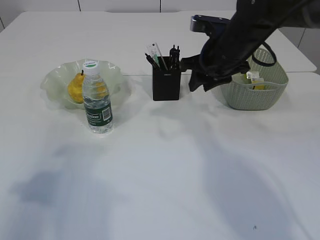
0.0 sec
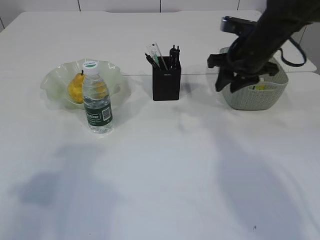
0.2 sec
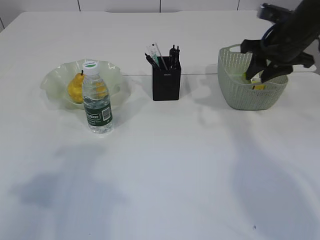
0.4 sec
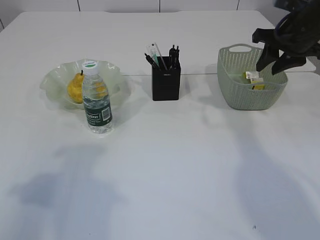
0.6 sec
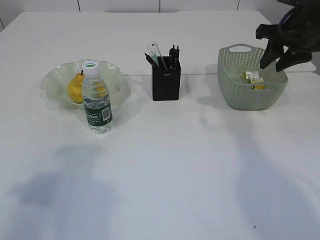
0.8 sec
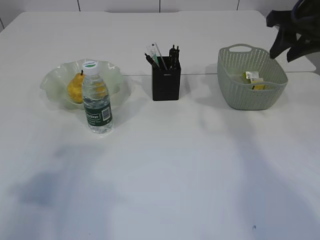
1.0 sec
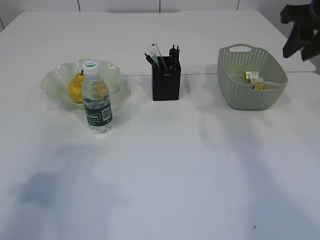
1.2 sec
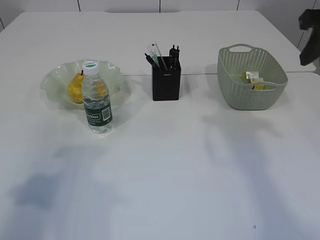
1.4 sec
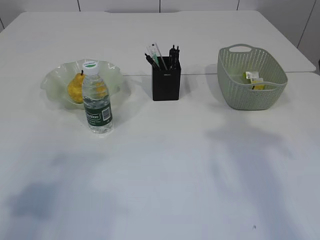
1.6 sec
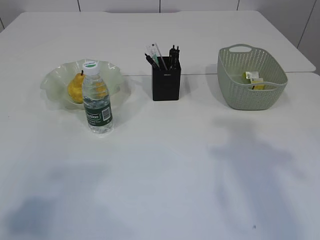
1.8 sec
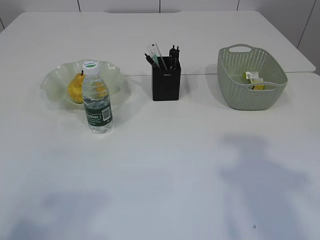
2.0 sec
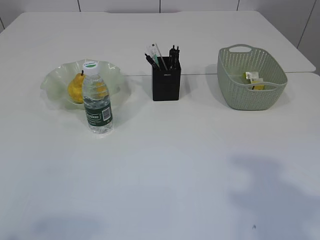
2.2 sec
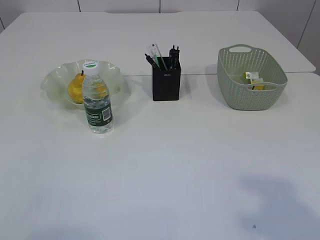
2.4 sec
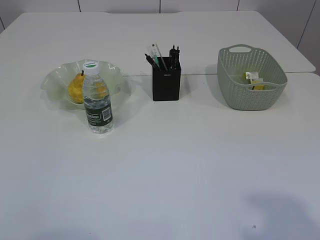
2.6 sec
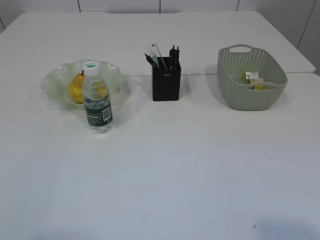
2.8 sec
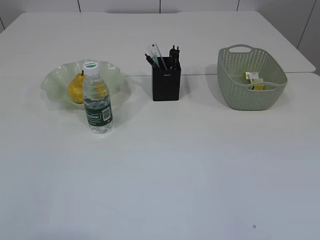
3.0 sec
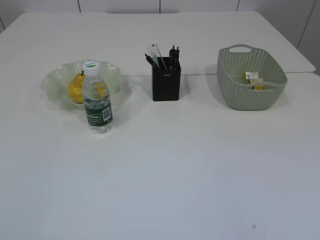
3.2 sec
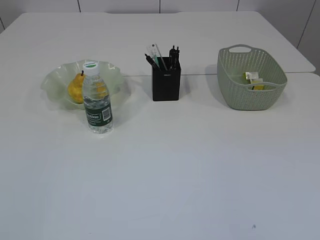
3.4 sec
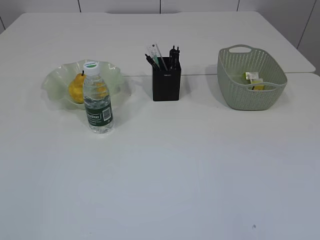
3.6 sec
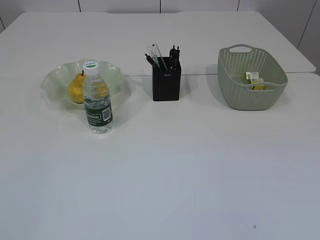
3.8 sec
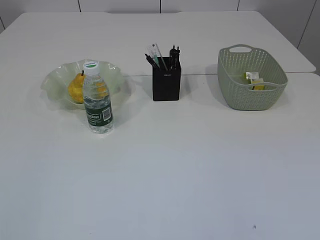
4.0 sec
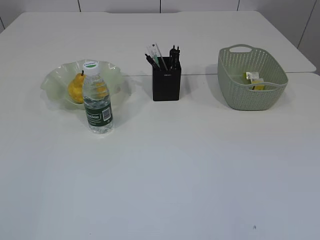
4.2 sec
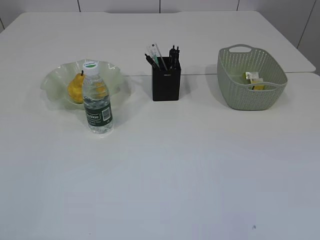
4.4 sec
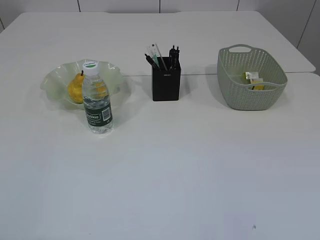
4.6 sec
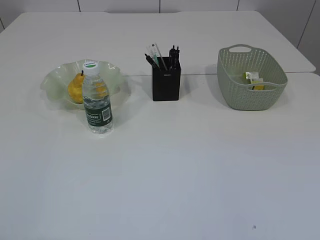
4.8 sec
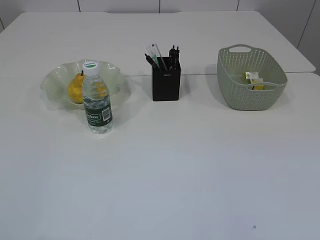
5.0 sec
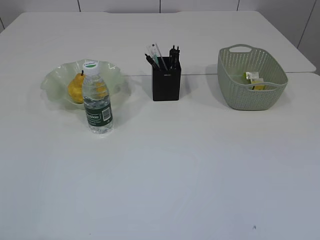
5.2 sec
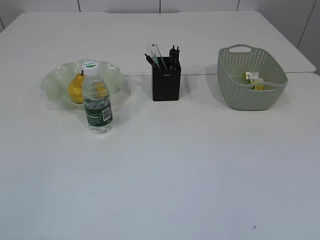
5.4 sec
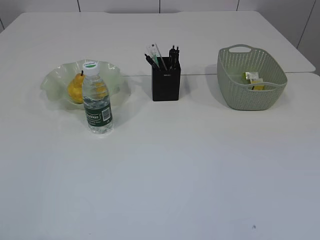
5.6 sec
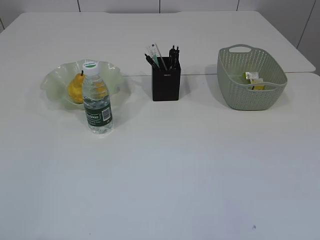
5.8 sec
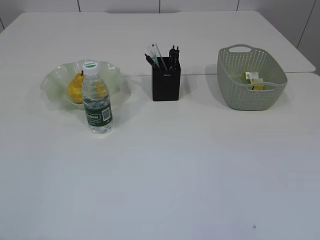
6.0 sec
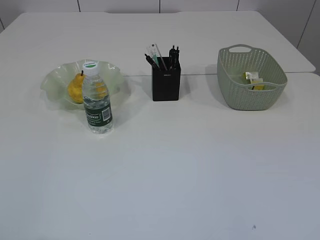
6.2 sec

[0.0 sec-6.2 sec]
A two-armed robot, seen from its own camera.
0.0 sec to 1.6 sec: The right gripper shifts about 25 cm backward, to the right and upward.
1.6 sec to 3.2 sec: The left gripper travels backward by some 15 cm.

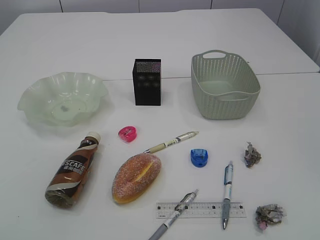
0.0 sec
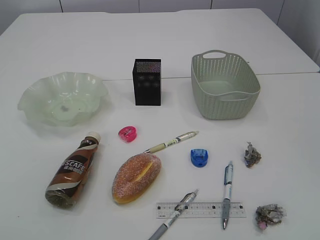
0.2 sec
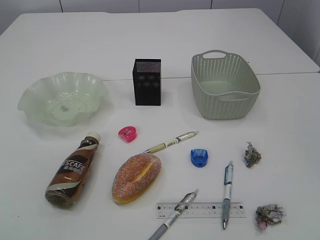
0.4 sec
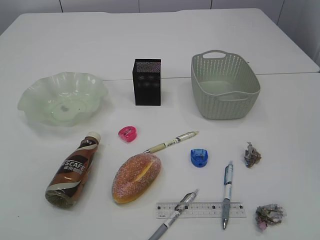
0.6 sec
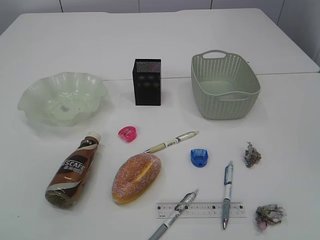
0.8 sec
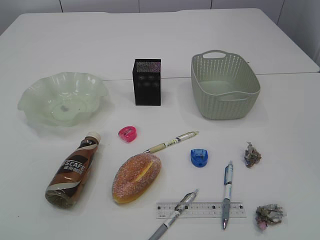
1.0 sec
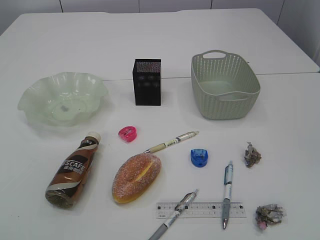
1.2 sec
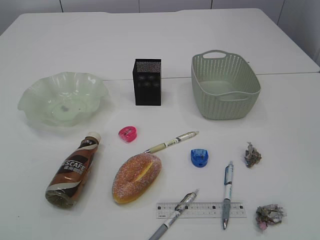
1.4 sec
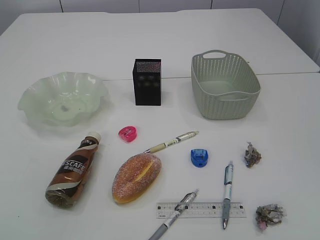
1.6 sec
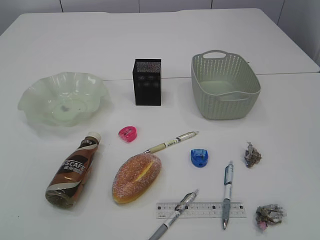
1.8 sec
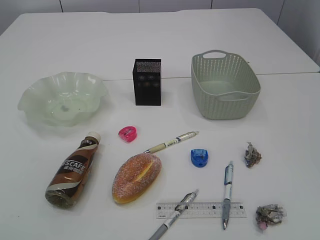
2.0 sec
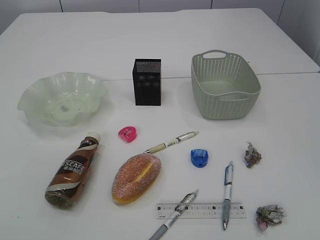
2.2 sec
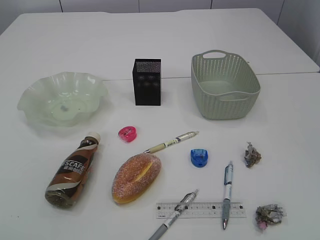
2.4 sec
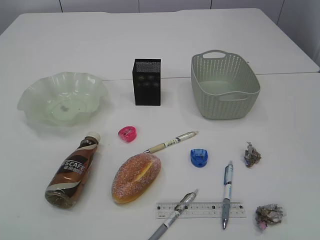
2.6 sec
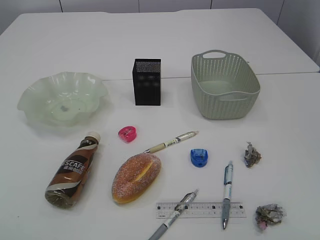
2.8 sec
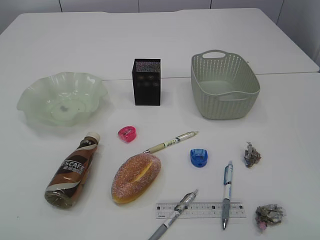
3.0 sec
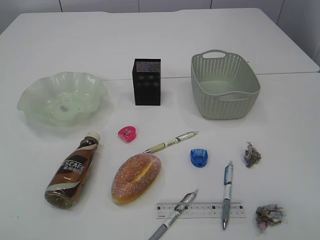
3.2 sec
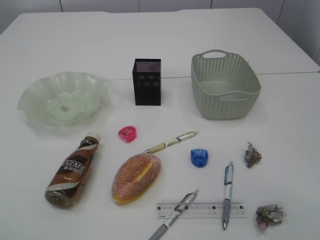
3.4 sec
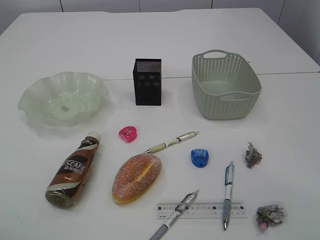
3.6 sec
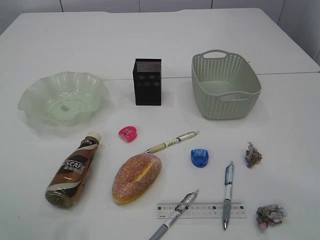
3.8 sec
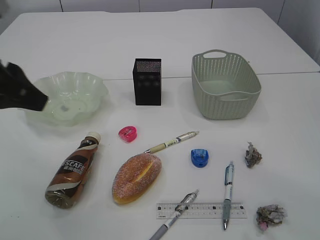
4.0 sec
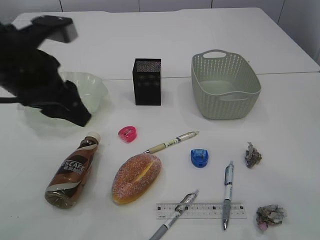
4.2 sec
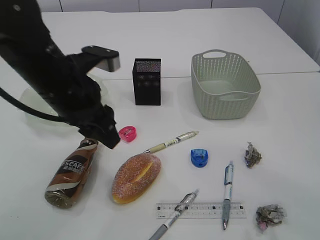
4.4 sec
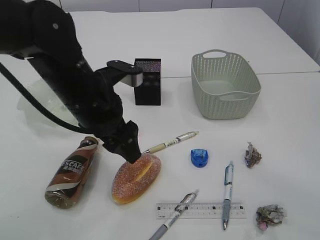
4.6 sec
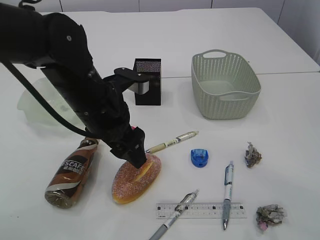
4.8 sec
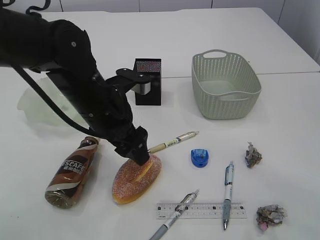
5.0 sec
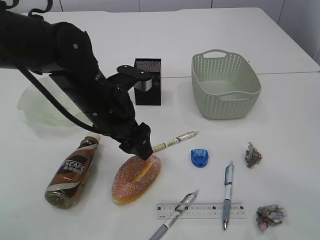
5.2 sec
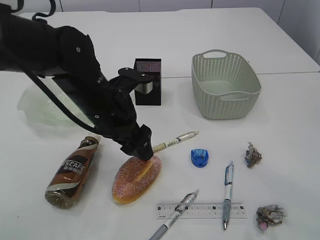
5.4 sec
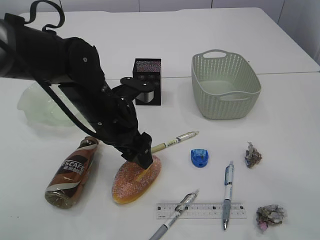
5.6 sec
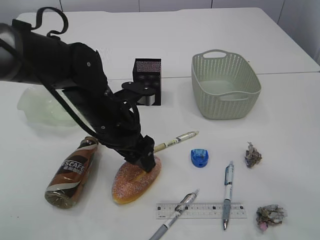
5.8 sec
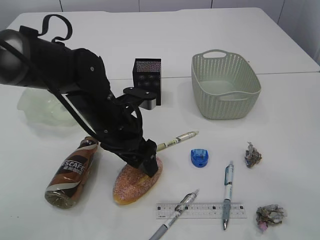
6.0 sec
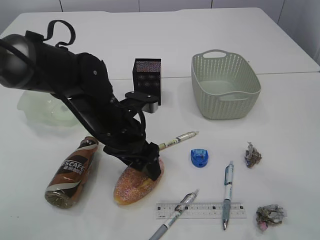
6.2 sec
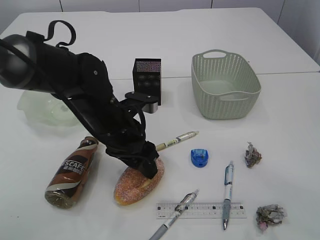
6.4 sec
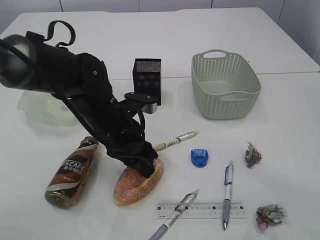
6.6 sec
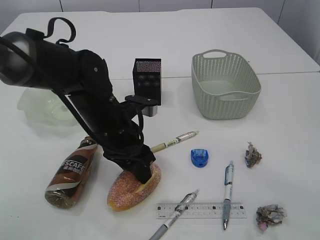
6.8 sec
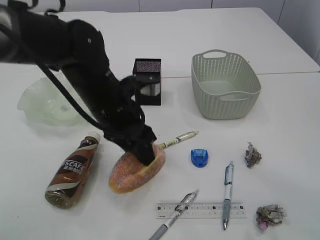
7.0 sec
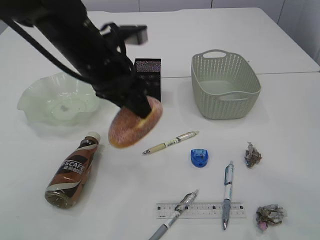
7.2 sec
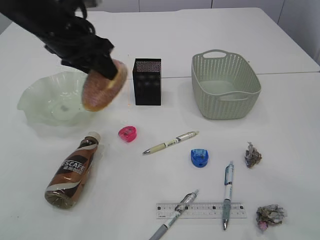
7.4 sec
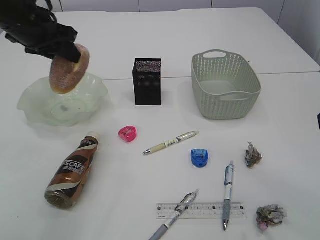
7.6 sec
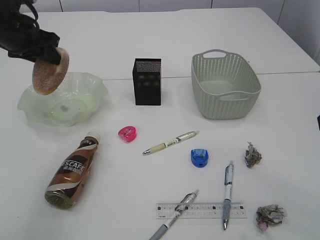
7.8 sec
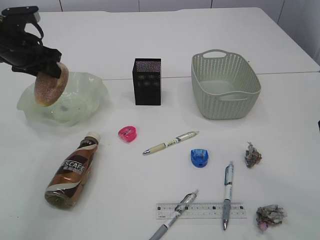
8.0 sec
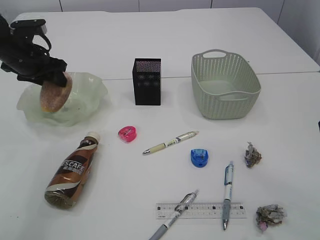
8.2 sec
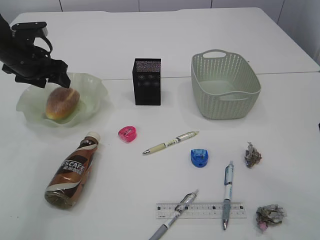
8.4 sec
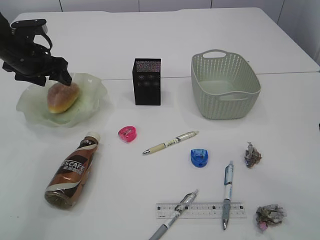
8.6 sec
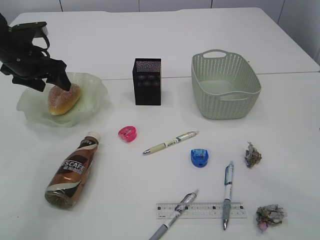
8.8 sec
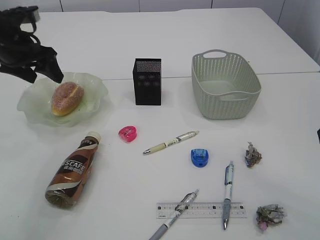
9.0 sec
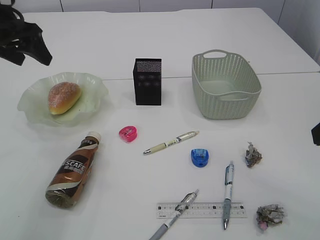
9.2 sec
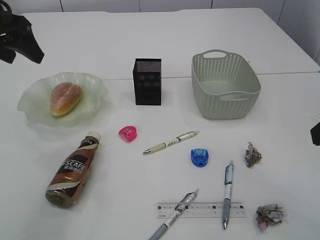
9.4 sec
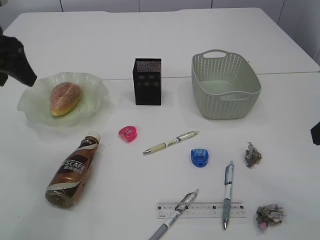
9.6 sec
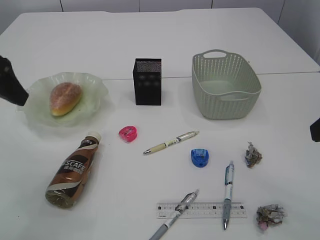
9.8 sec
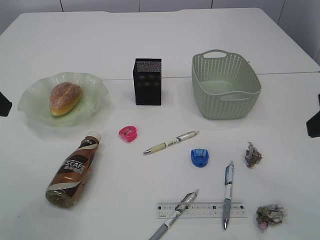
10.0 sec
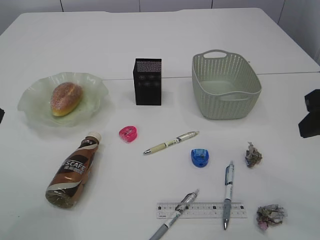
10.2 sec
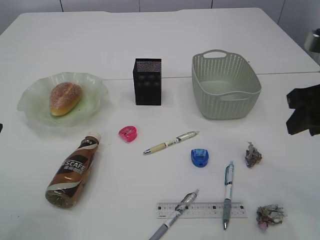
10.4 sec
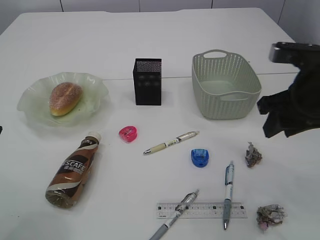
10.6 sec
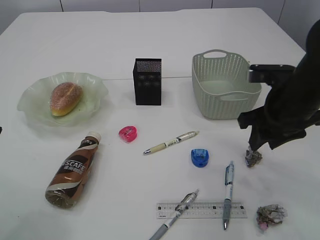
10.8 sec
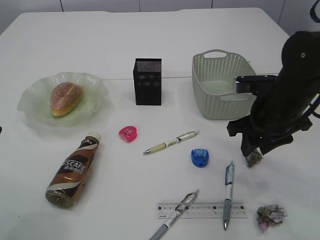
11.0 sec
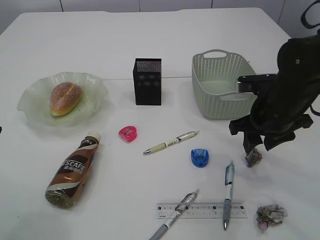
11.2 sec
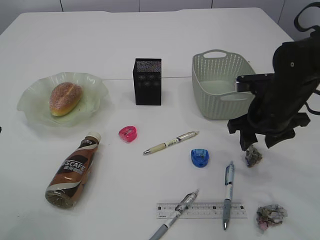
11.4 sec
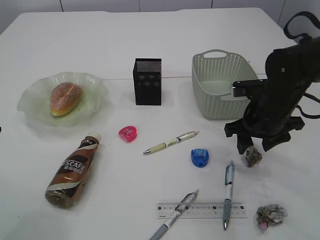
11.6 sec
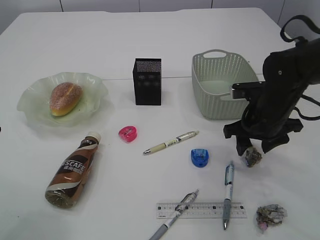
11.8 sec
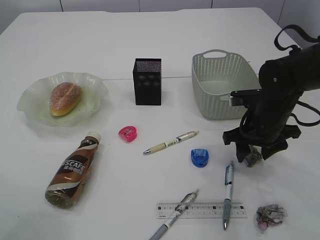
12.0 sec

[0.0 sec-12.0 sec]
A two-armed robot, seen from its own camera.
Step, 7.2 sec to 9.0 sec: place the bread in the plate.
3.0 sec to 4.4 sec: The right gripper travels forward by about 15 cm. The left gripper moves forward and to the right, some 30 cm.
4.4 sec to 6.0 sec: The left gripper shifts approximately 10 cm downward and to the right, and opens its fingers.
6.0 sec to 7.6 sec: The left gripper moves upward, to the left and forward, about 20 cm, and closes.
7.6 sec to 9.0 sec: The left gripper travels to the left by some 5 cm, and opens its fingers.
9.0 sec to 10.4 sec: The right gripper travels forward by approximately 5 cm. The left gripper shifts roughly 20 cm backward.
10.4 sec to 12.0 sec: The right gripper travels downward and forward by about 20 cm.

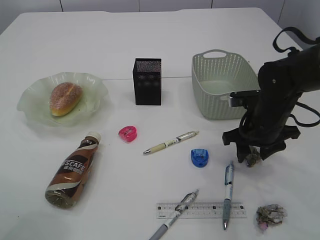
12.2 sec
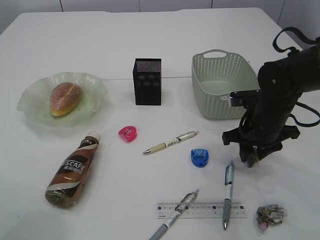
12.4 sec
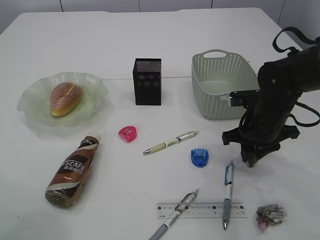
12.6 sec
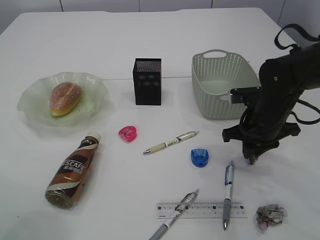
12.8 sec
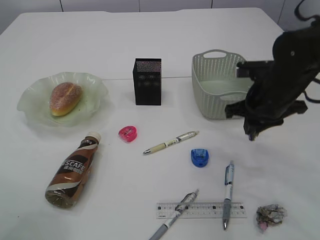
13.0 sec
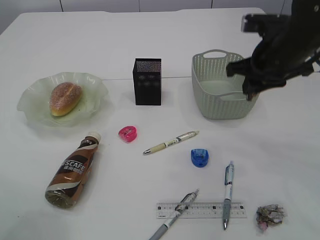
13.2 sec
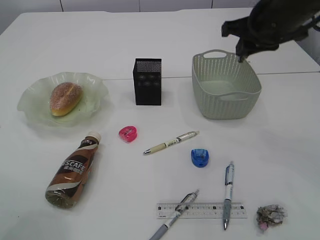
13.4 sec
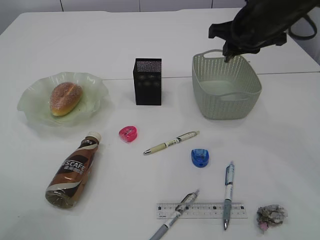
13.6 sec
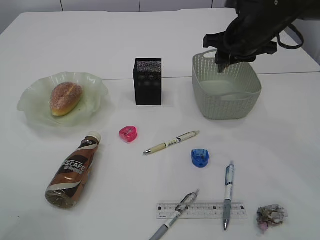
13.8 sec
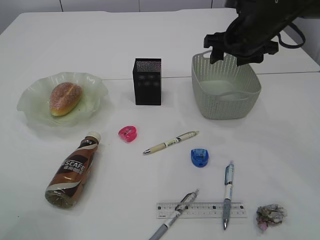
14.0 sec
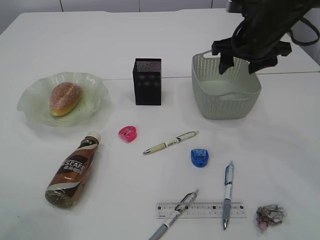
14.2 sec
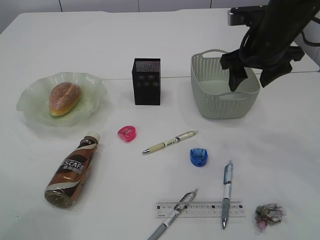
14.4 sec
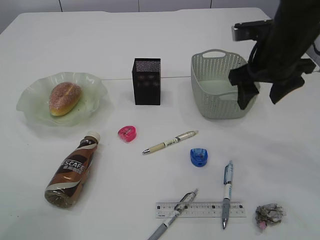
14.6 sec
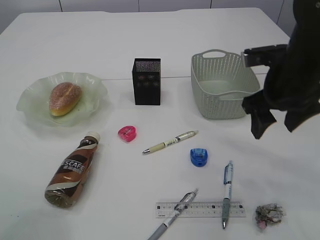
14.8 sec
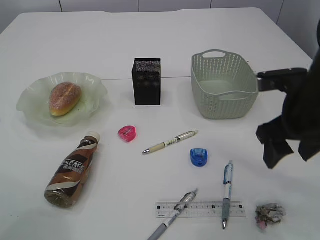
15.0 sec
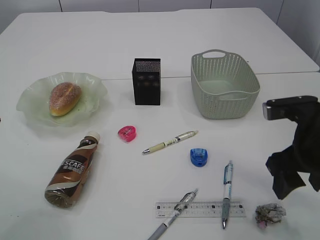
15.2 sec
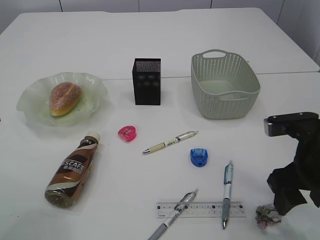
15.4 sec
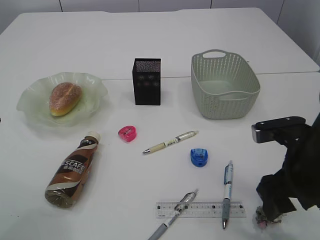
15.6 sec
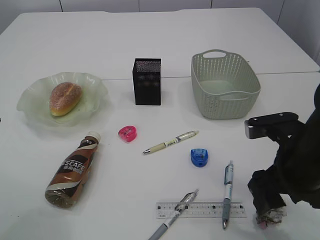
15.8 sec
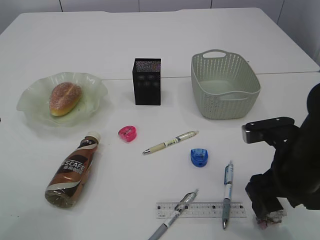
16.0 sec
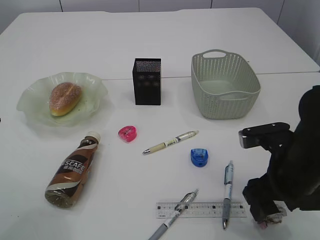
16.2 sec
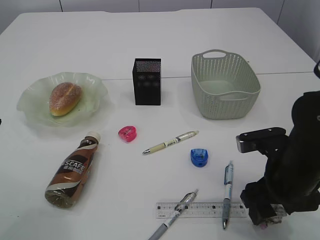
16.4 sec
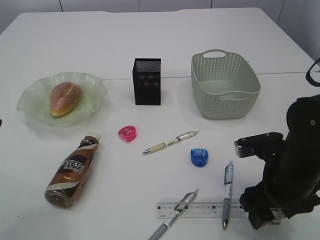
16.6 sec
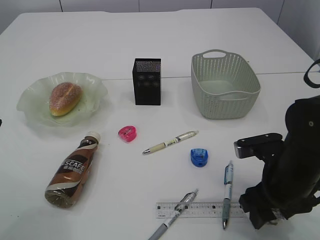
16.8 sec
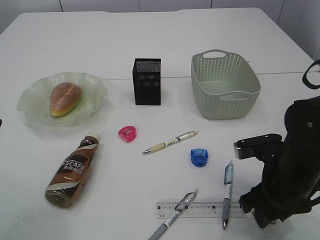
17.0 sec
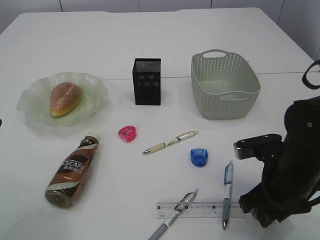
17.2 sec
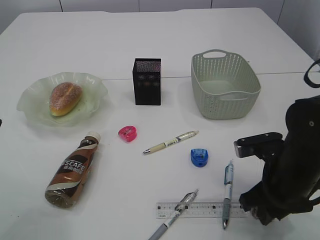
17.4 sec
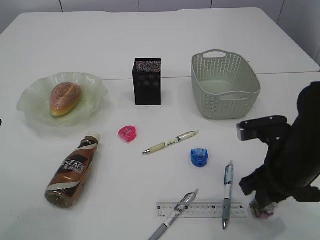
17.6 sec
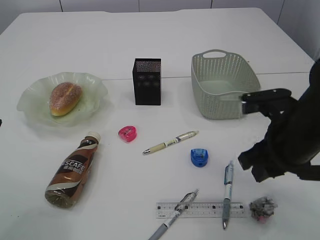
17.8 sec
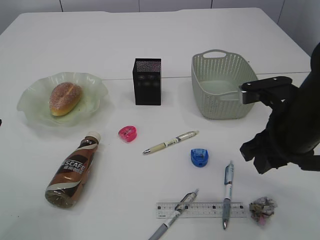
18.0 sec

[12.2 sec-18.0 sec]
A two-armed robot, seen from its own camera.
Step, 13.0 sec to 13.8 sec: Place the waste paper in the basket.
12.2 sec to 13.6 sec: The right gripper moves upward and forward, some 15 cm, and closes its fingers.
13.6 sec to 15.0 sec: The right gripper goes about 15 cm backward, and opens up.
15.0 sec to 16.6 sec: The right gripper moves downward, approximately 10 cm.
16.6 sec to 18.0 sec: The right gripper goes roughly 10 cm upward, and closes its fingers.
